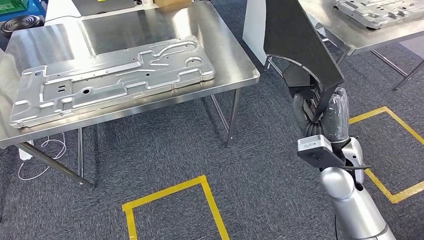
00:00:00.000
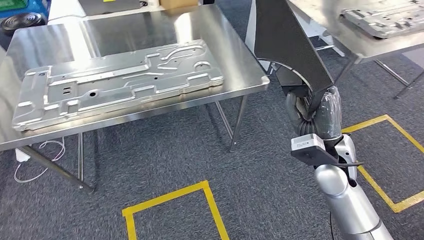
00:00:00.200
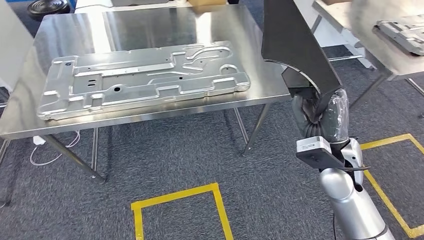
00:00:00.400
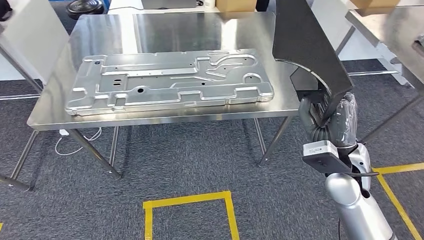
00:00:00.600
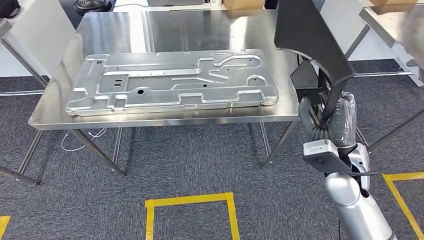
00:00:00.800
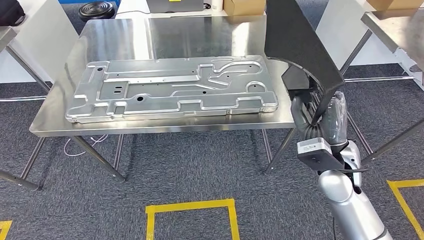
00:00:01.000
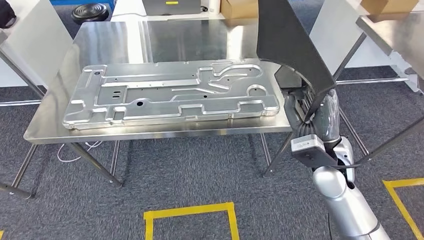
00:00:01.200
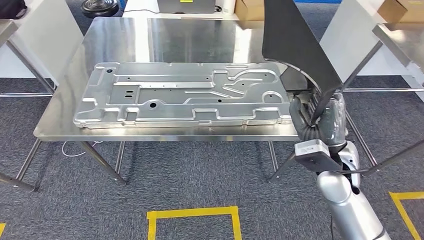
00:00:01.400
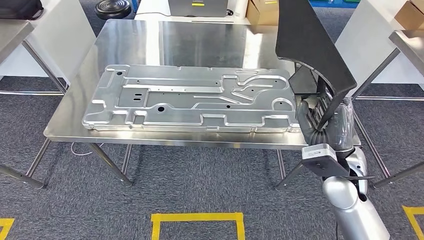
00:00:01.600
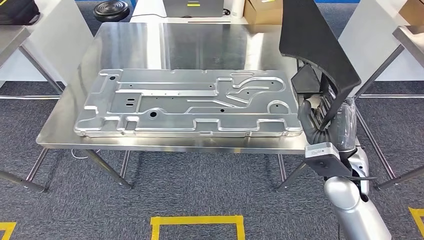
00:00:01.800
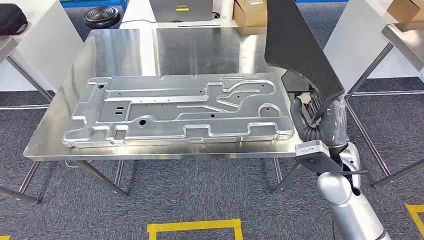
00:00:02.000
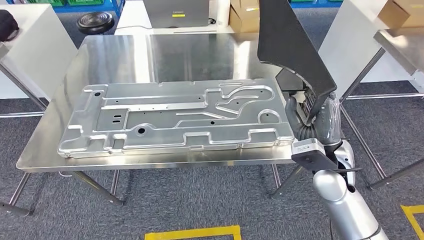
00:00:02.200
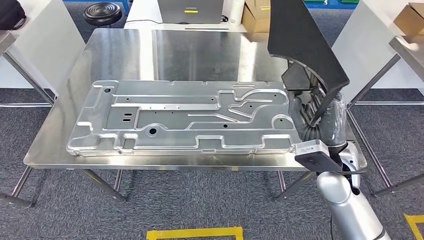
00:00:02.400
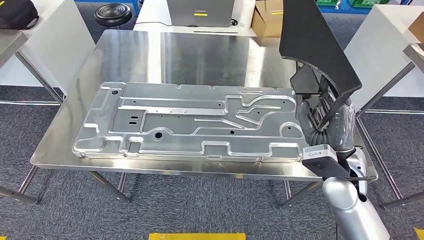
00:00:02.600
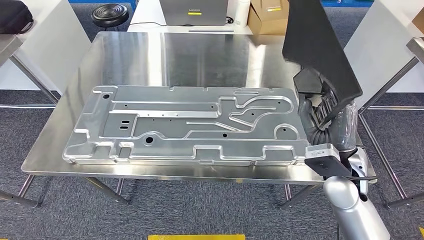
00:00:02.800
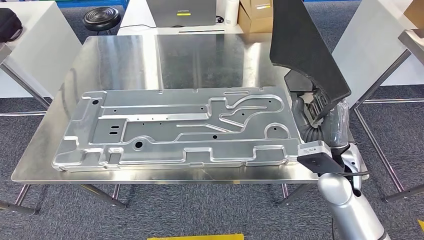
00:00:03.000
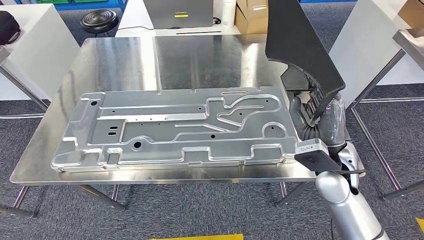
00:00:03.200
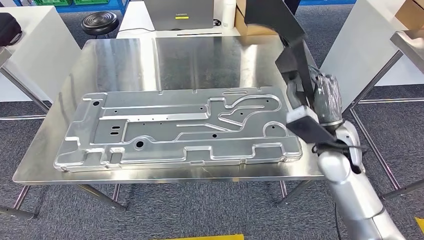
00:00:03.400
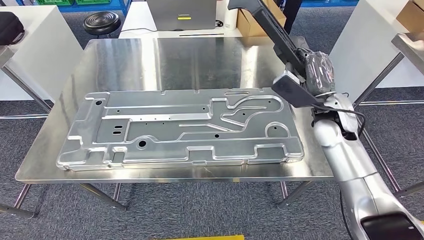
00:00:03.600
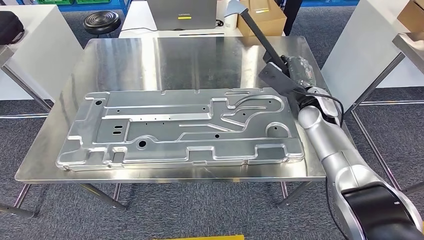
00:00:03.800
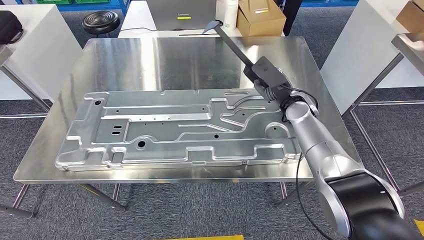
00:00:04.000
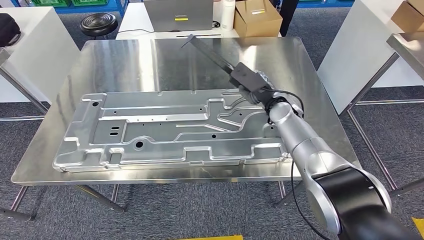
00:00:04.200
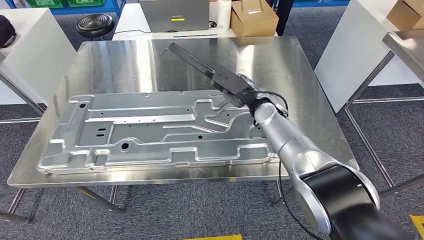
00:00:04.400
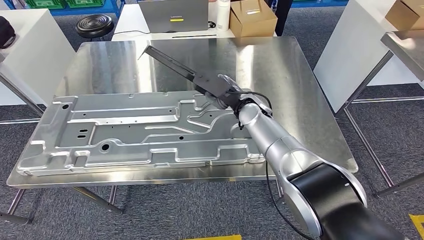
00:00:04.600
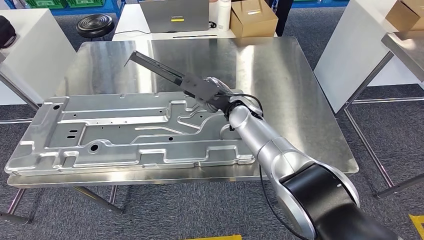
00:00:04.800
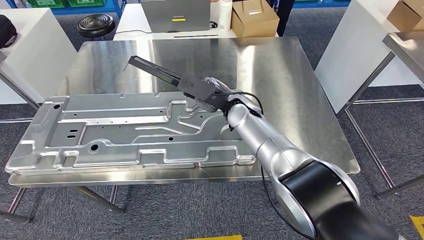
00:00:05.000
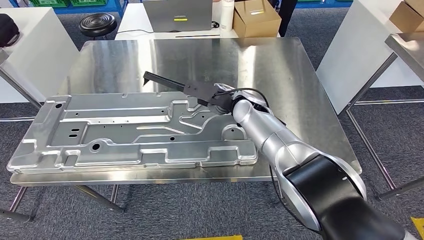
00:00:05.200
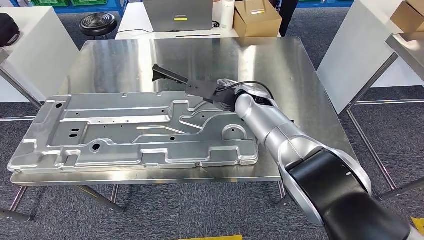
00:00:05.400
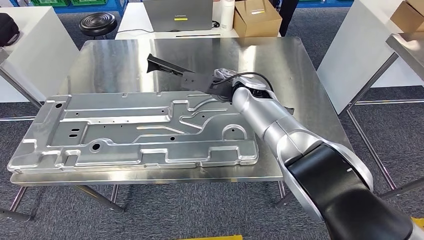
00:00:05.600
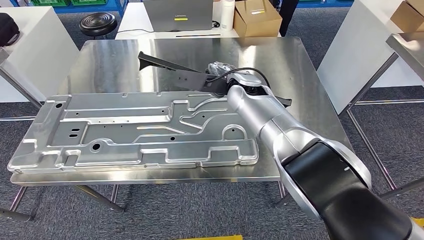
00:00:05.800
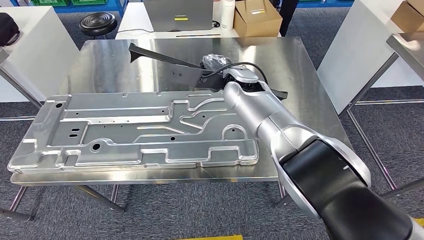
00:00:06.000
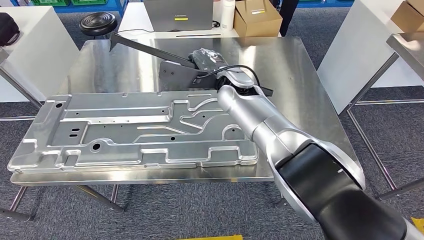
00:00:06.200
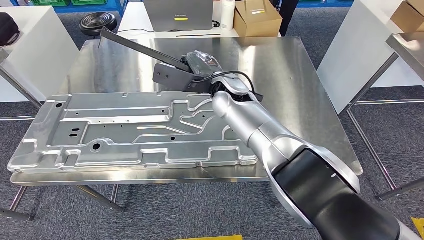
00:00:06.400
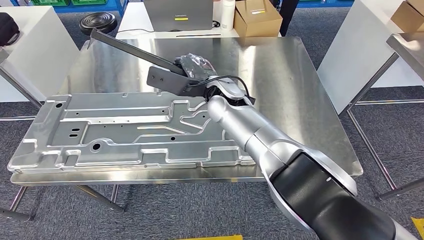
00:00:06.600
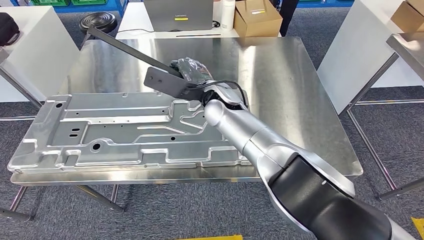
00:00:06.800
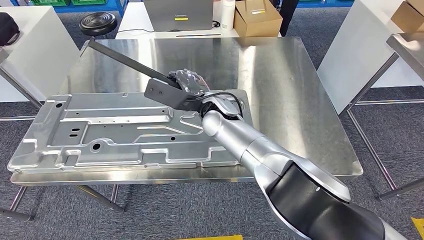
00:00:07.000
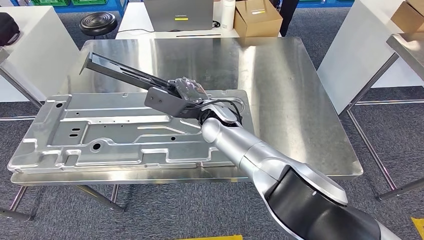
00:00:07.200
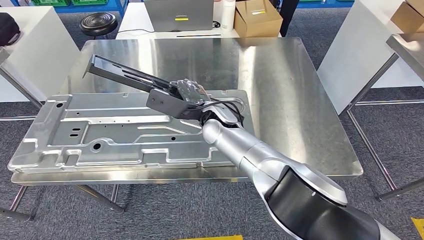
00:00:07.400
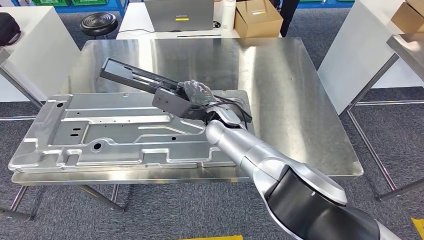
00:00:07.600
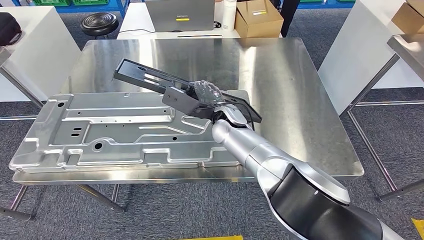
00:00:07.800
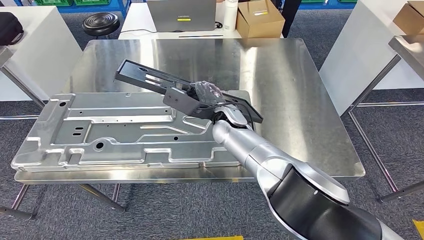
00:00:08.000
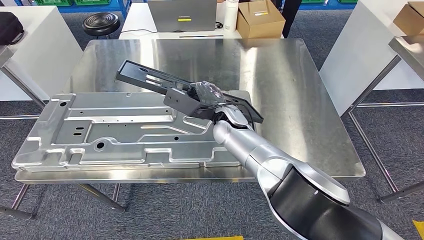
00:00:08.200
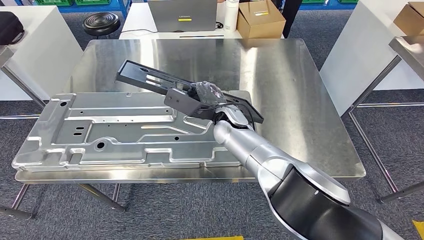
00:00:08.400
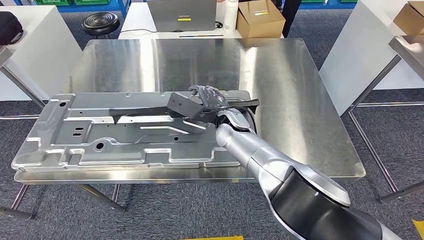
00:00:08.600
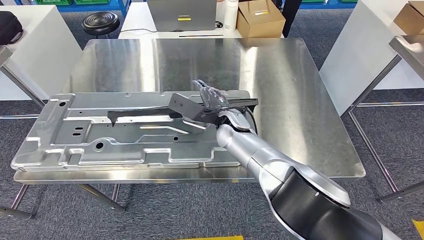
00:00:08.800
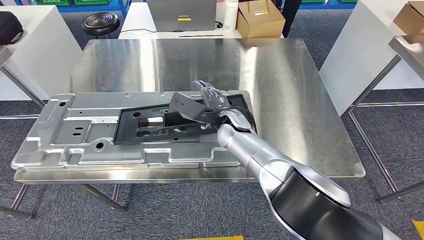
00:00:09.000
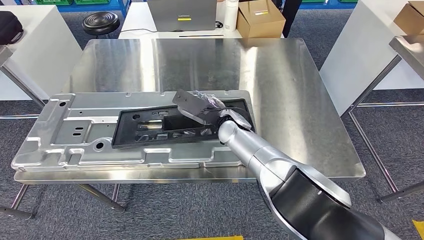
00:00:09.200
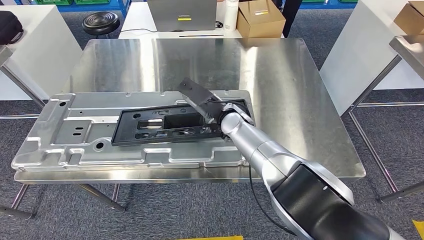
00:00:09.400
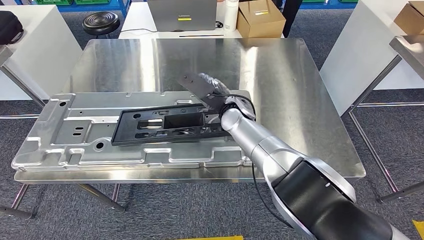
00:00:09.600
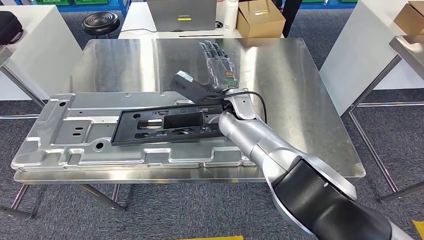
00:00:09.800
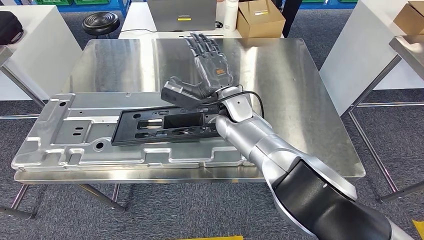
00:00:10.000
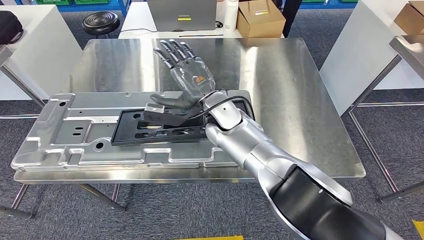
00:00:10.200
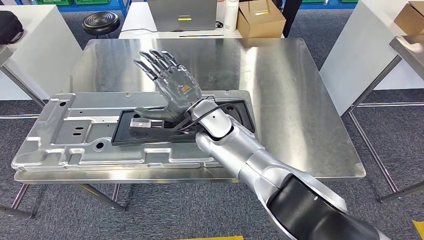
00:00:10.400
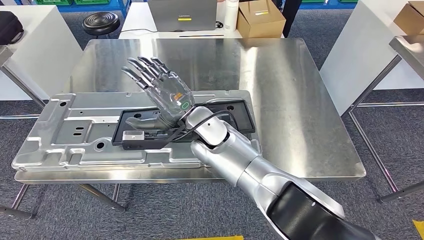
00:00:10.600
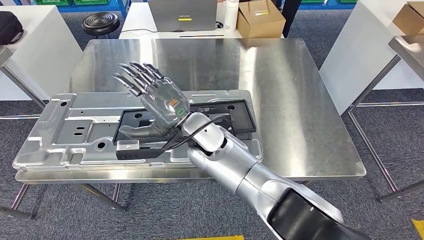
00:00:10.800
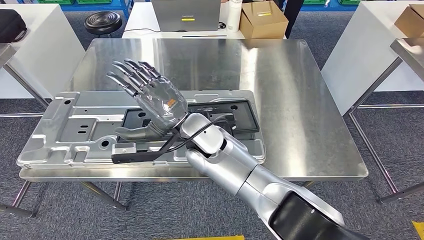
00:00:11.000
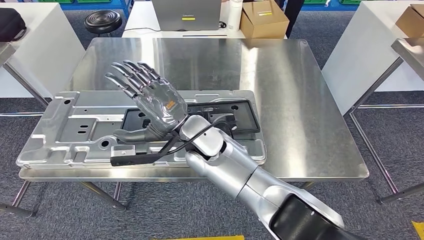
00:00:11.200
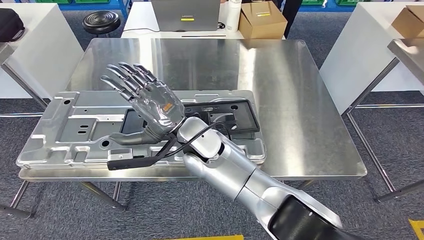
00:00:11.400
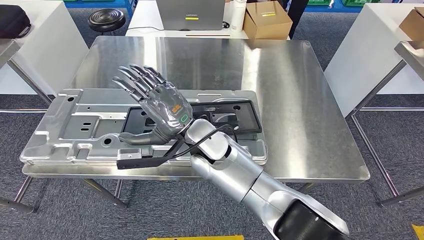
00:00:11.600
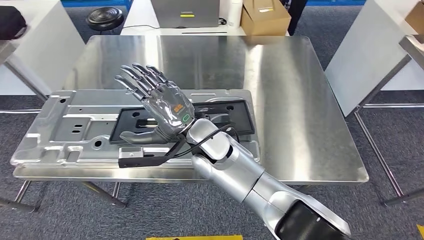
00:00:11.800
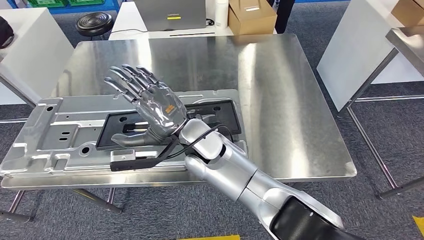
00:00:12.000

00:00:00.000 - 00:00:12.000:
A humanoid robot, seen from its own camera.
Step, 00:00:00.000 - 00:00:10.200: Insert the large material into the corresponding hole on the workbench.
00:00:07.600 - 00:00:09.000: There are only small adjustments of the hands.
00:00:09.000 - 00:00:10.400: The right hand heads upward and to the left, covering some 10 cm.

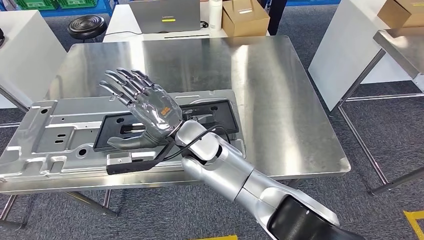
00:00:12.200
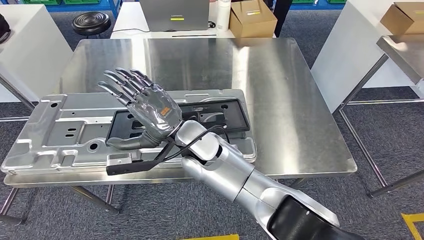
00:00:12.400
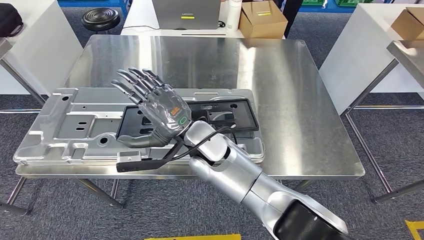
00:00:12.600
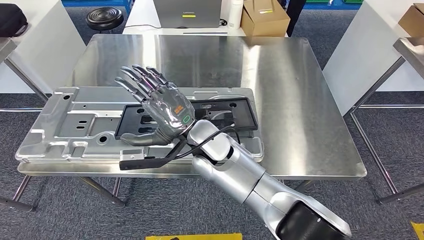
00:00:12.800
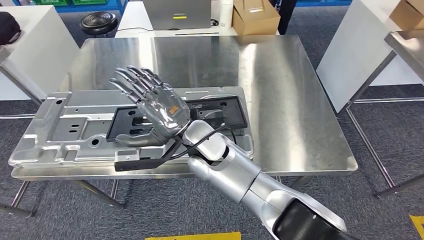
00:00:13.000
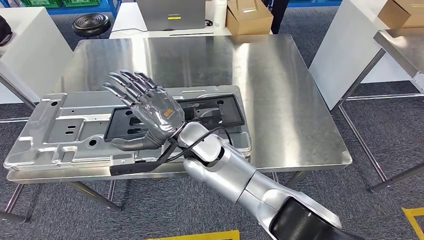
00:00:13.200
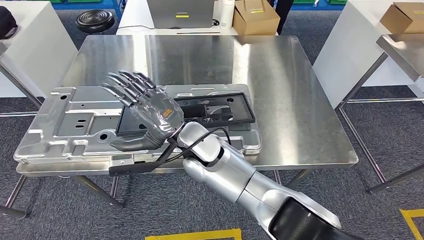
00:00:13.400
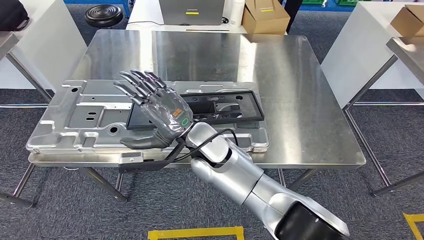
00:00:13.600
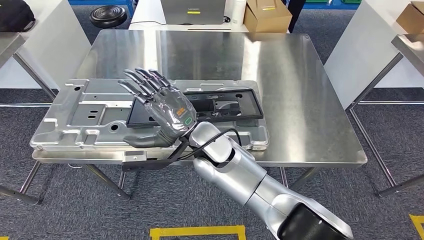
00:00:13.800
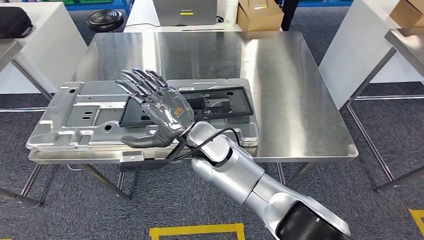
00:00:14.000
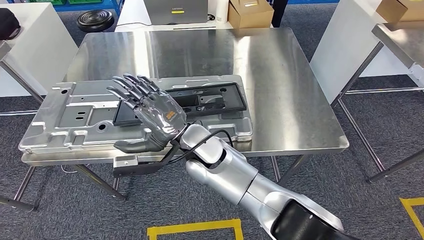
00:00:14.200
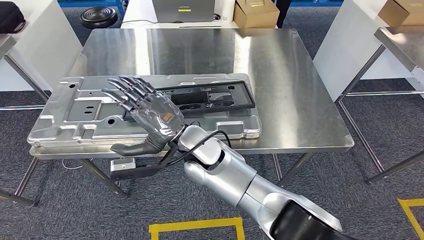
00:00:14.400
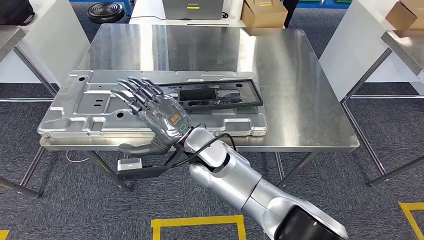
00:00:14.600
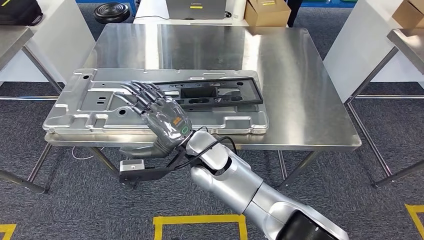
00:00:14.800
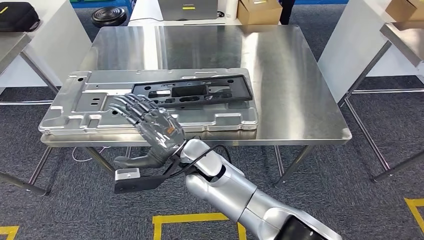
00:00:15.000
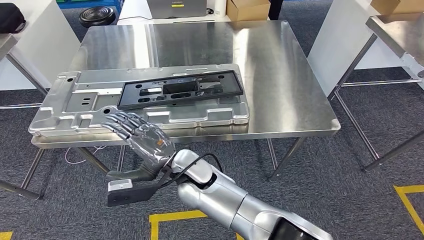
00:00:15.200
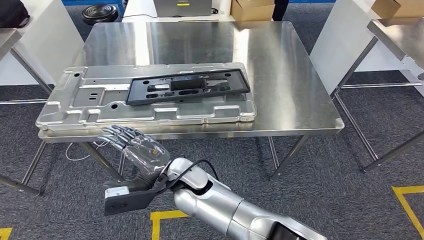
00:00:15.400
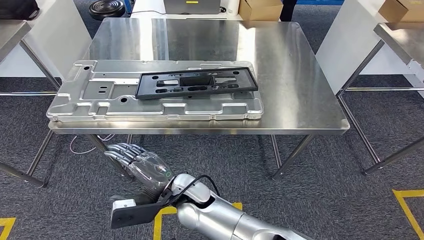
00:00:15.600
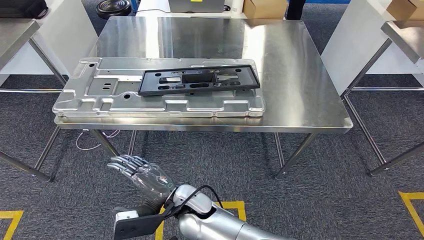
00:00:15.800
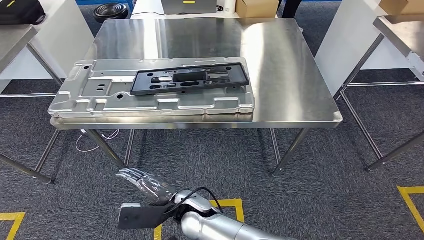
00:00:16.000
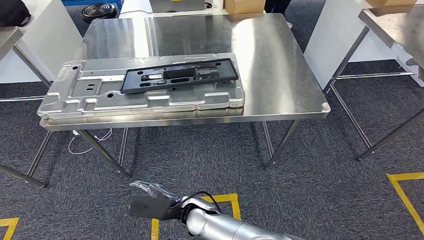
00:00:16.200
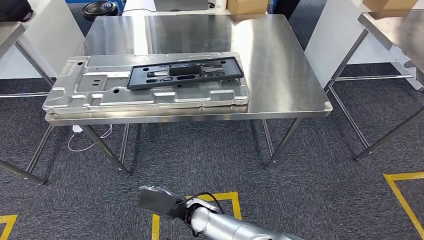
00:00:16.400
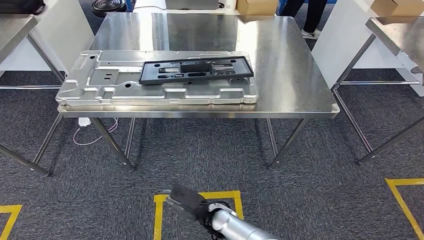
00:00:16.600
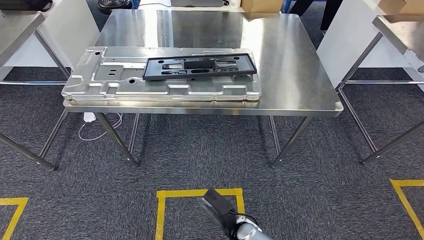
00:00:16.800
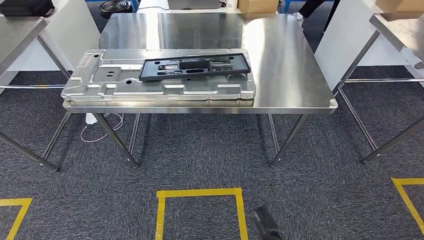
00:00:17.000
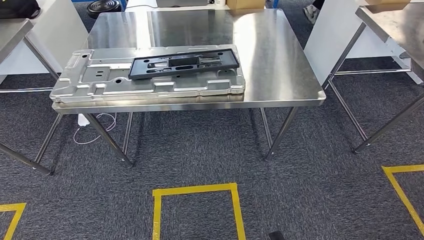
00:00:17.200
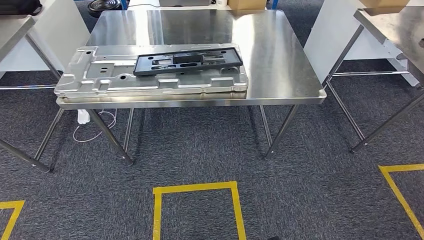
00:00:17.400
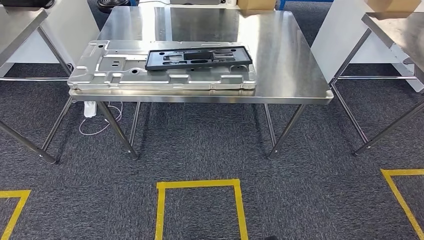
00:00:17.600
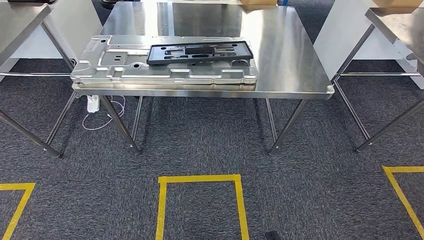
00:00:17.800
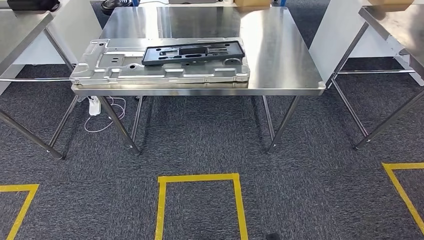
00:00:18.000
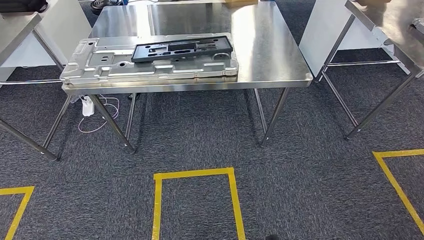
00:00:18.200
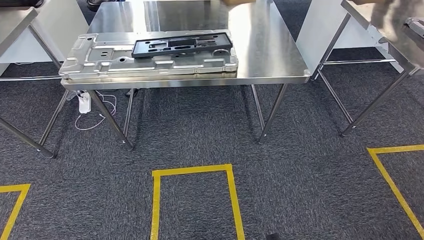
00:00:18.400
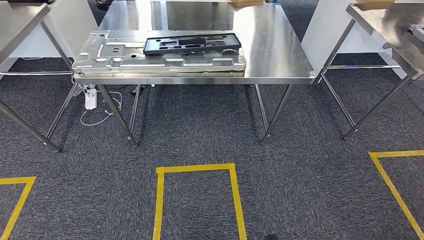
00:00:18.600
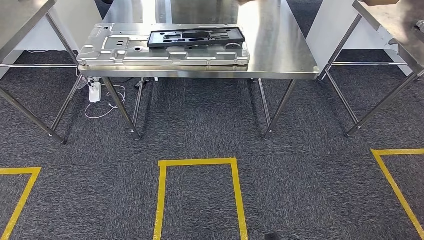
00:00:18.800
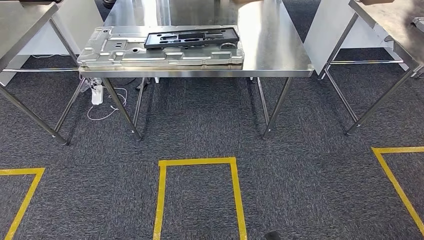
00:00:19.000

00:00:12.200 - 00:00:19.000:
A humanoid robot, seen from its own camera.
Step, 00:00:12.200 - 00:00:19.000: Move to the initial position of the shelf.
